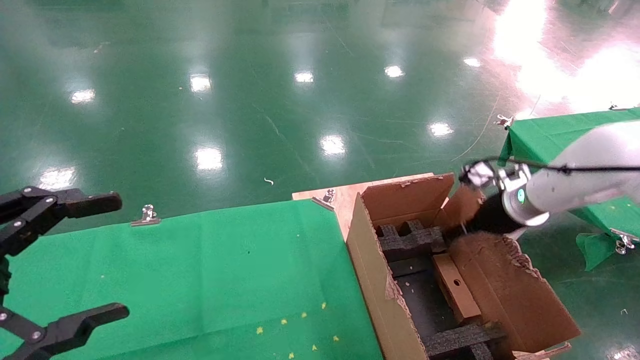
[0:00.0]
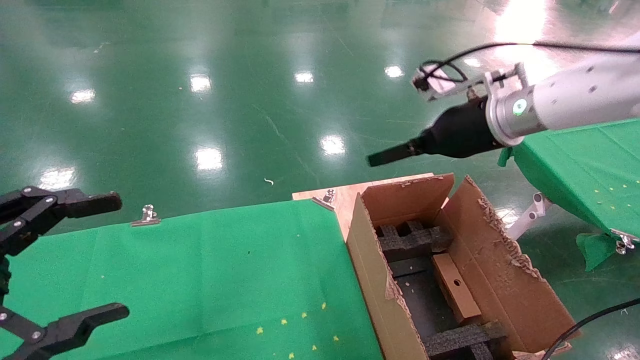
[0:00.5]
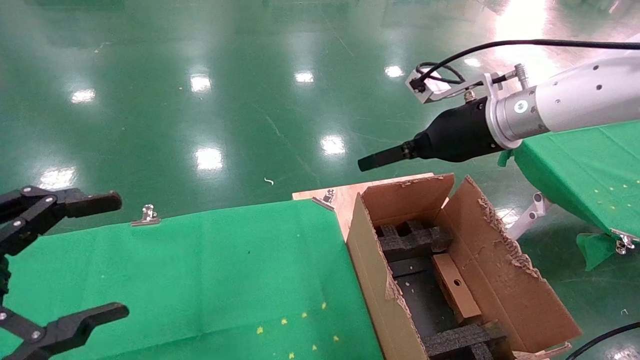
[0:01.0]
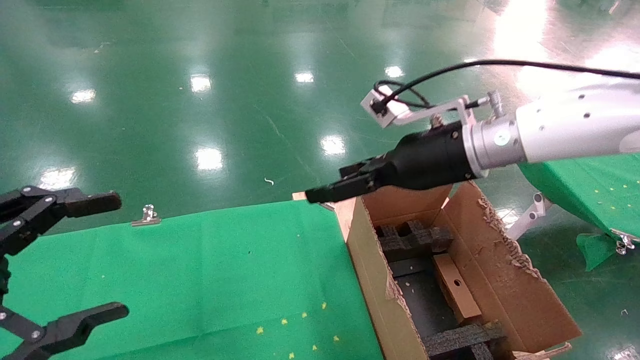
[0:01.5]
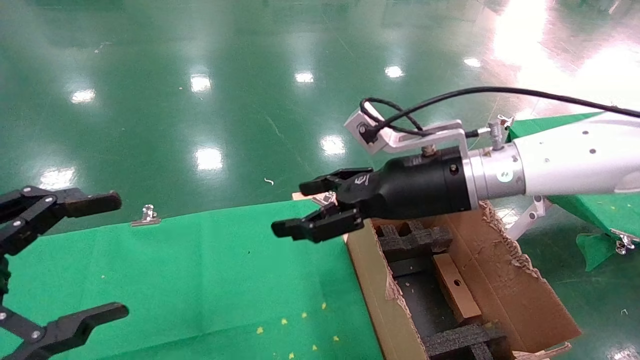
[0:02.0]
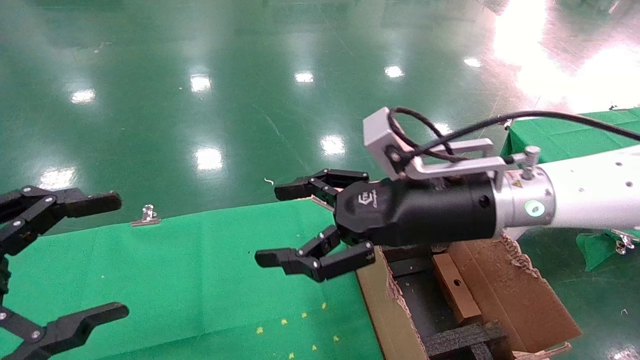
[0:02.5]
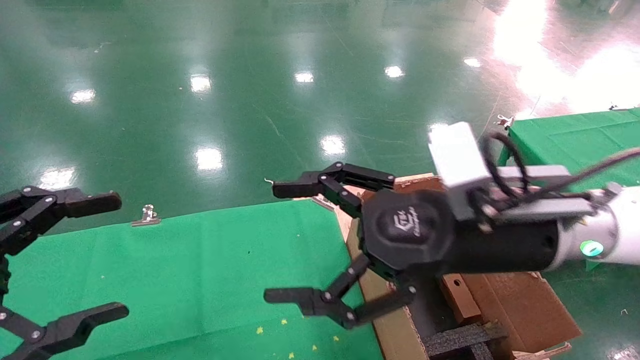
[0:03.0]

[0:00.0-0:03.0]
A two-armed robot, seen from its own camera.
Task of the whole recording: using a robotic arm to pick up a cardboard box and palace it the carton.
0:00.0 to 0:01.5: The right gripper is displaced to the left and upward by roughly 20 cm.
0:01.5 to 0:03.0: The right gripper is displaced backward by approximately 10 cm.

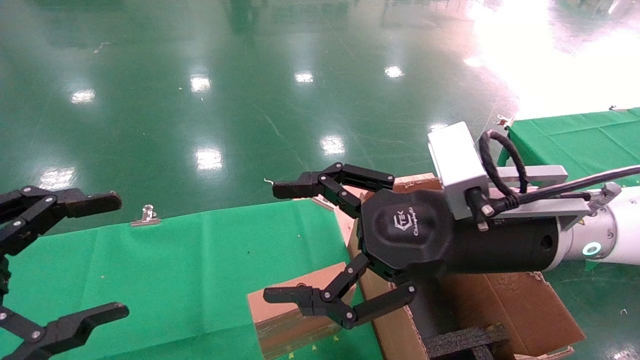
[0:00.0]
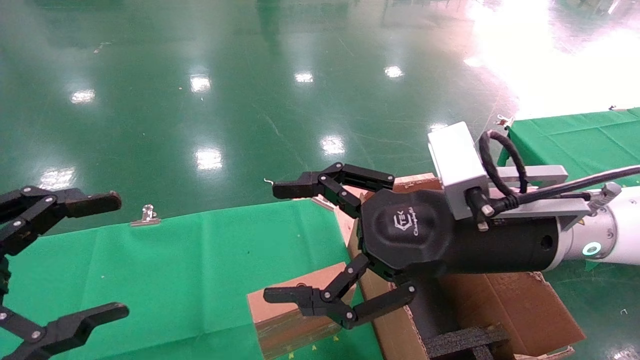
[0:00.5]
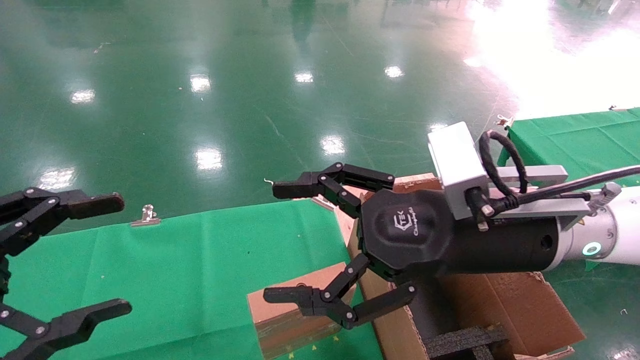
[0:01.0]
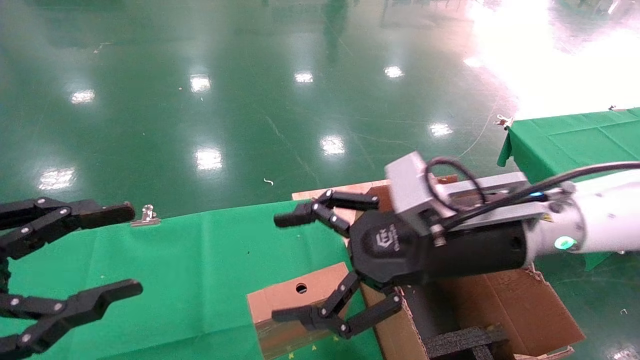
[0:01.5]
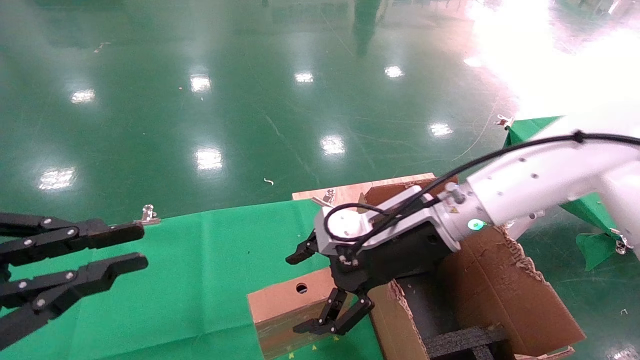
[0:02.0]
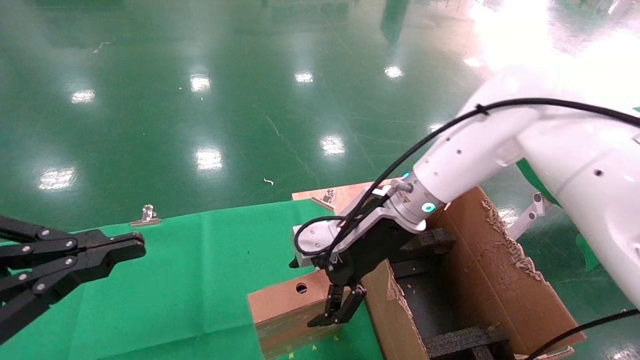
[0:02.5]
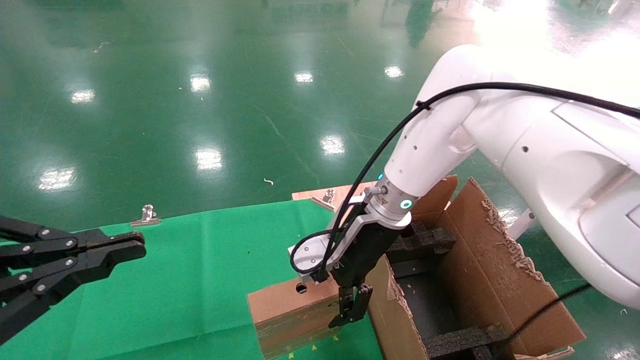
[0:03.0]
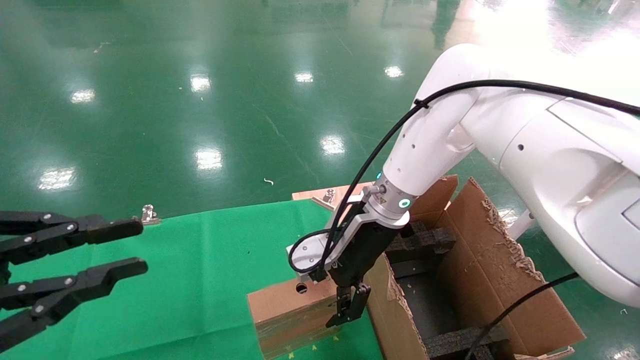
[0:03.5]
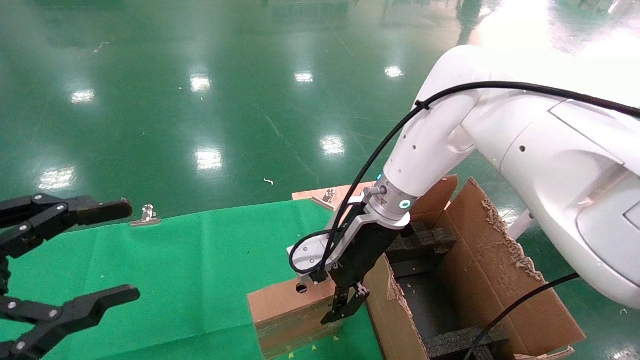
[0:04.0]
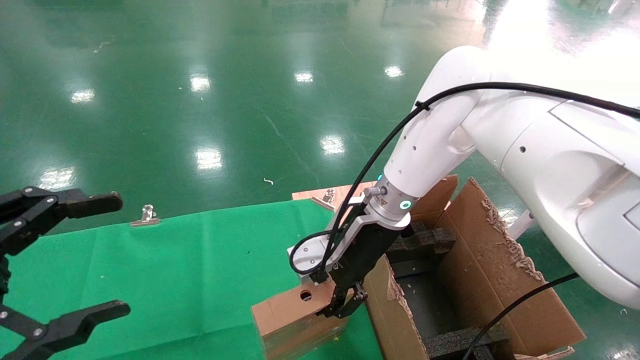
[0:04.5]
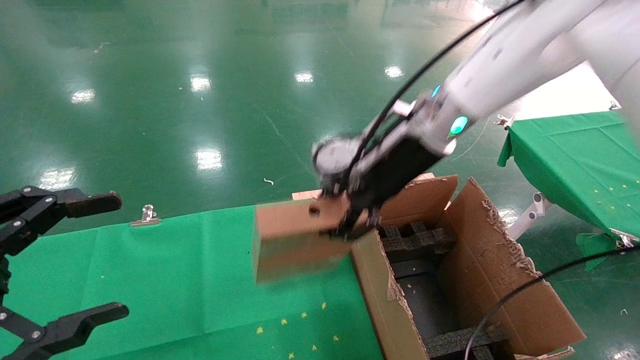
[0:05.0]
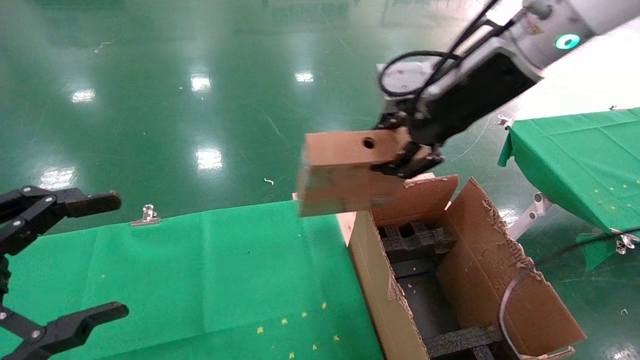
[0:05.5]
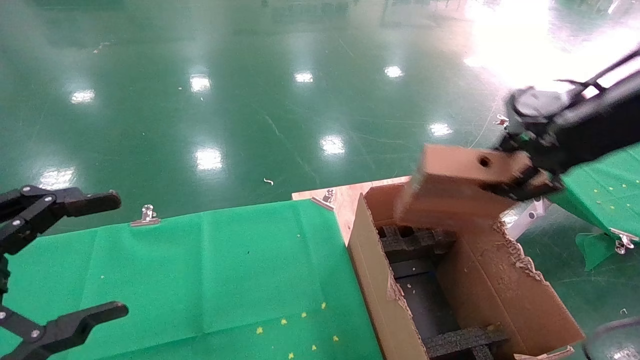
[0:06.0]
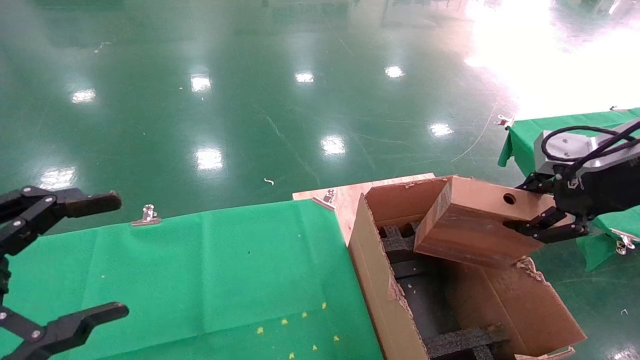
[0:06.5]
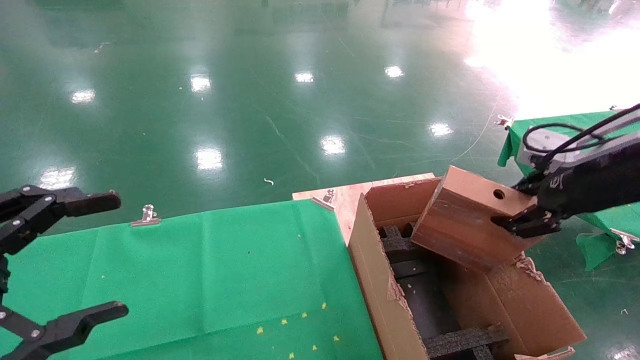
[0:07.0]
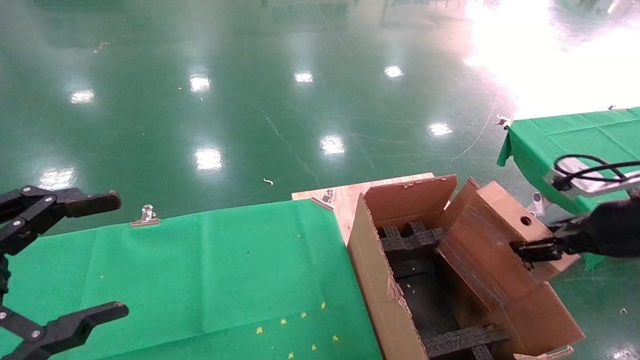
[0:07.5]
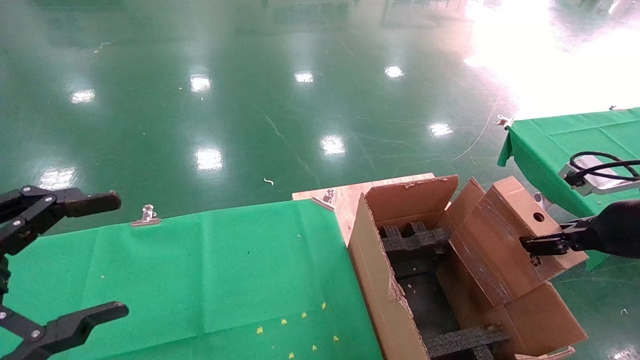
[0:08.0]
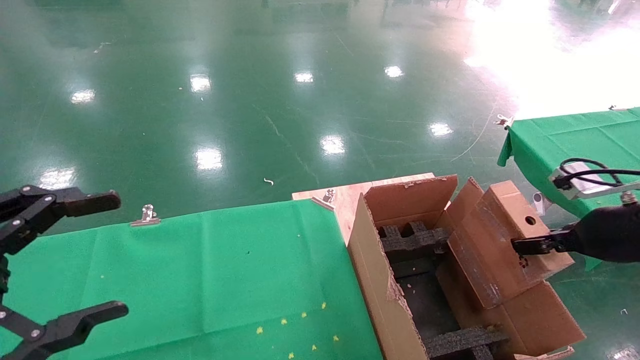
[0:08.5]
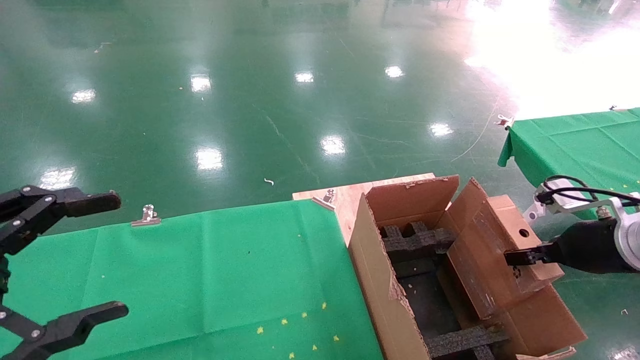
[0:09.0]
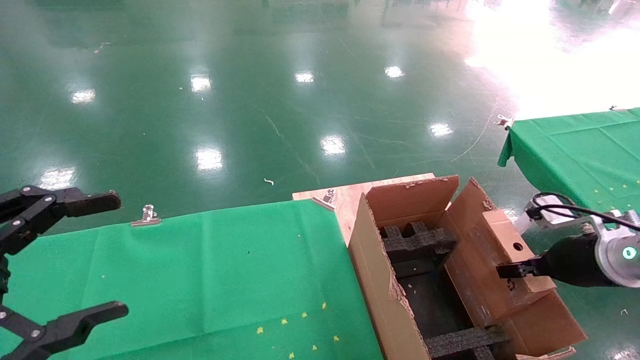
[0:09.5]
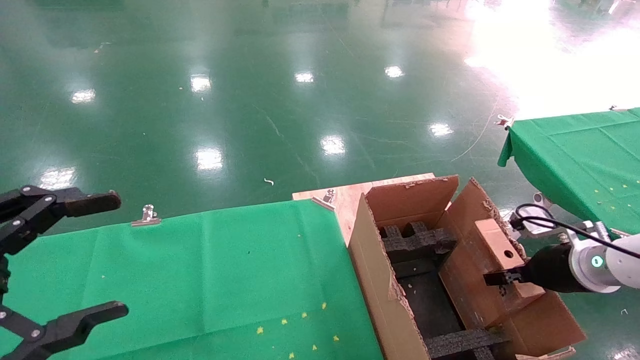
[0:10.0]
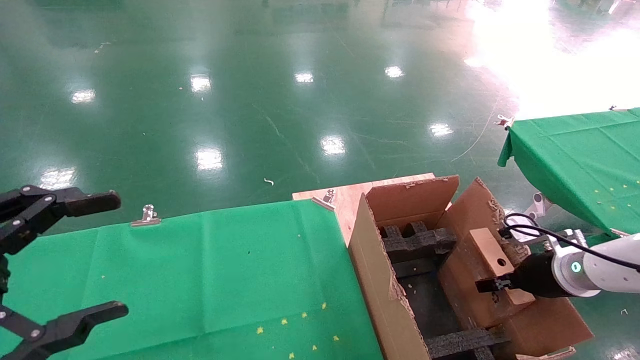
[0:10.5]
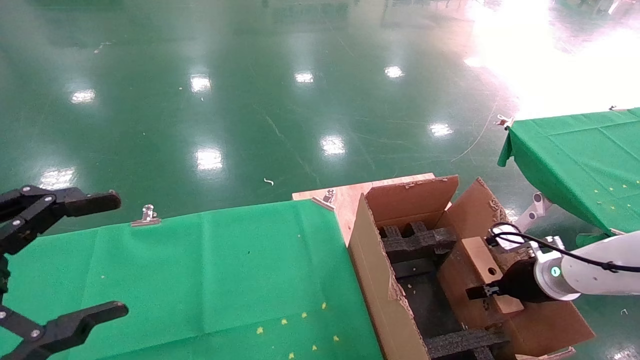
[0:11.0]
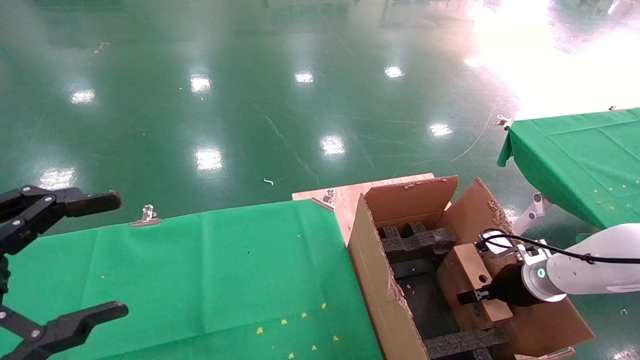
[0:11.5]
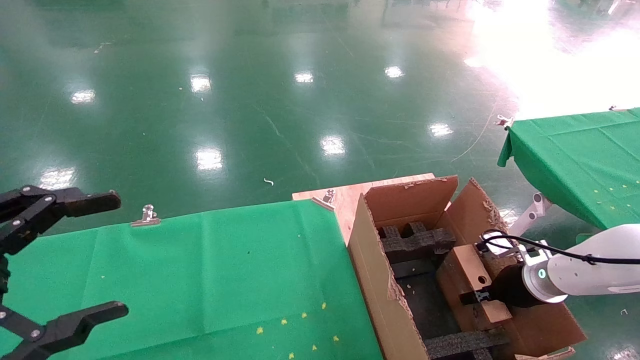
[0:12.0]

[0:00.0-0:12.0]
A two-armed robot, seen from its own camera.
Task of the whole recording: using a robotic arm to pick up a cardboard box and palace it the carton.
Step, 0:01.5 to 0:04.5: Pick up the mouse and the power cord paper box.
0:00.0 to 0:02.0: The left gripper closes its fingers, while the right gripper shifts approximately 10 cm forward.
0:02.0 to 0:04.0: The right gripper heads forward, covering some 5 cm.
0:04.0 to 0:06.0: The right gripper travels to the right, upward and backward by approximately 30 cm, and closes. Meanwhile the left gripper opens up.
0:06.0 to 0:08.0: The right gripper goes some 15 cm downward and to the right.
0:08.0 to 0:10.0: The right gripper goes about 15 cm downward and forward.
0:10.0 to 0:12.0: The right gripper travels downward and forward by some 10 cm.

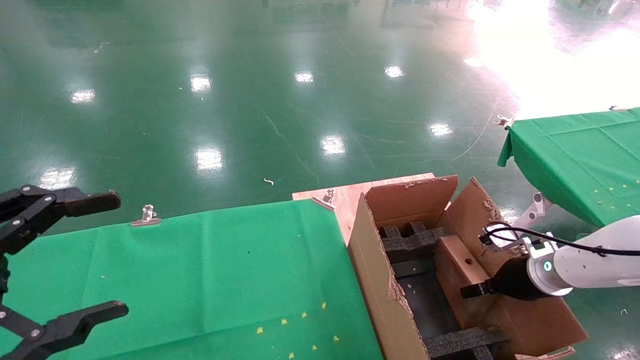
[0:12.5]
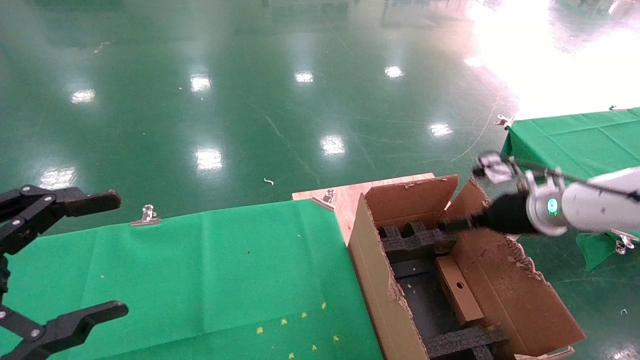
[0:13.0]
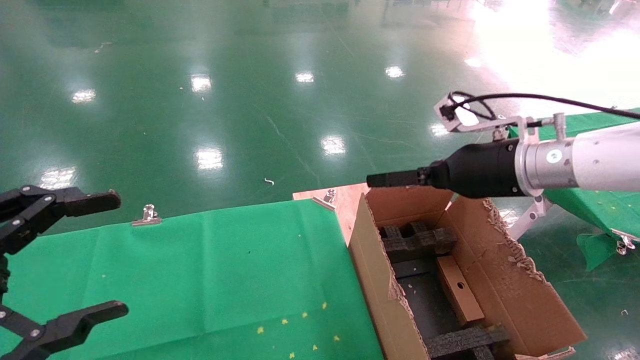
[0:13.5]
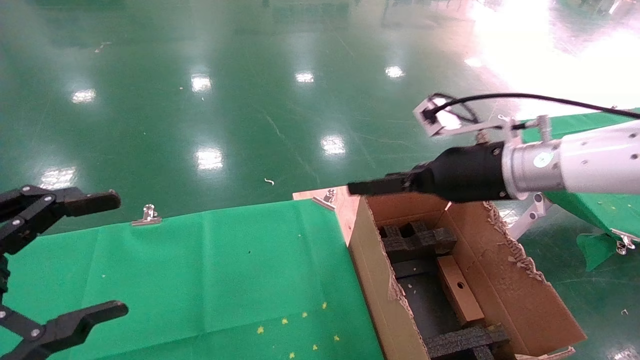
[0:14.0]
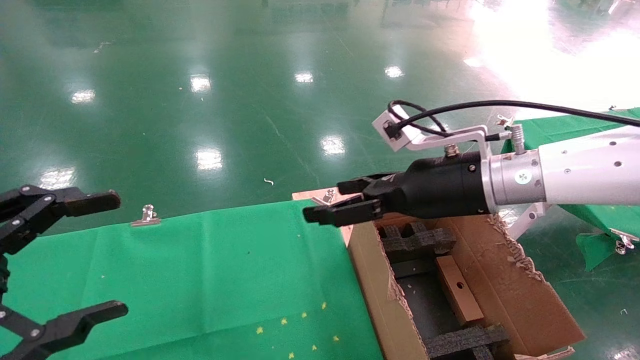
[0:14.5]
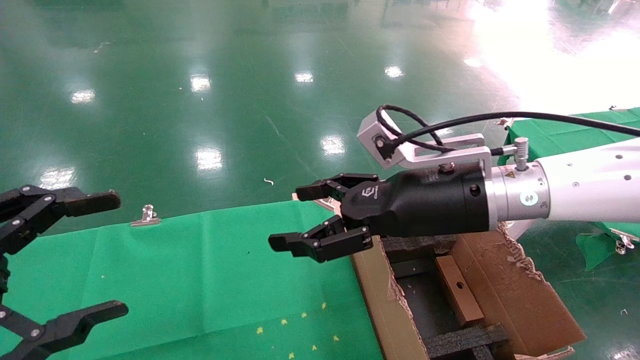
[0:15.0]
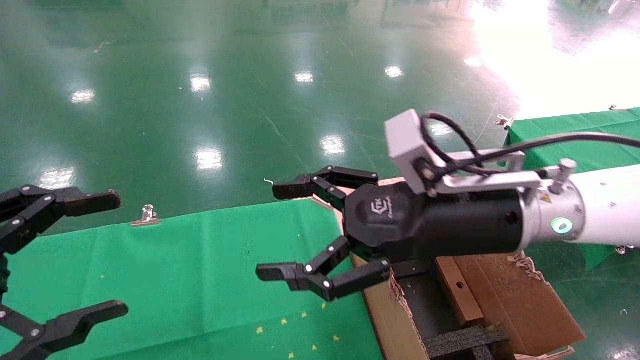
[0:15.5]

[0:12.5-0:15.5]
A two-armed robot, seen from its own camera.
Task of the whole recording: using a robotic arm to pick up a cardboard box and palace it the carton.
0:12.5 to 0:14.0: The right gripper shifts roughly 25 cm upward and to the left, and opens up.
0:14.0 to 0:15.5: The right gripper moves backward and to the left, some 10 cm.
